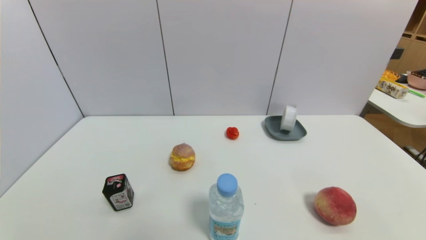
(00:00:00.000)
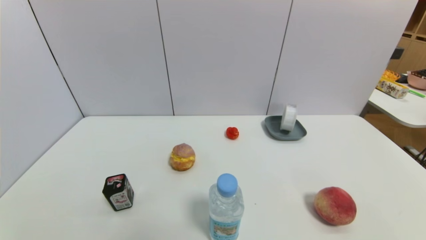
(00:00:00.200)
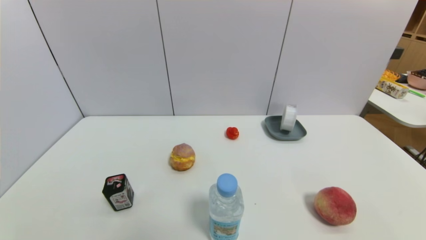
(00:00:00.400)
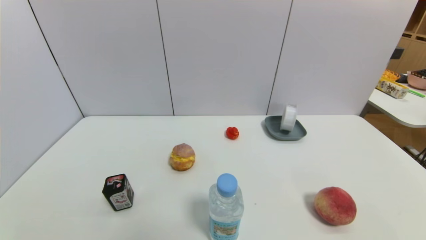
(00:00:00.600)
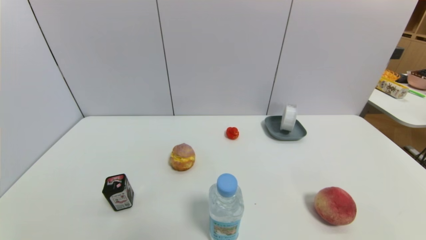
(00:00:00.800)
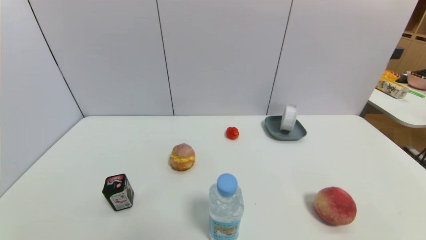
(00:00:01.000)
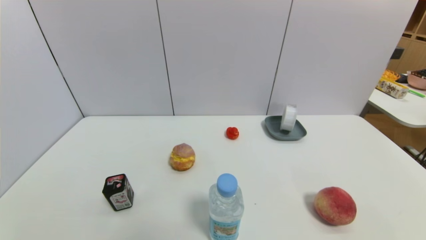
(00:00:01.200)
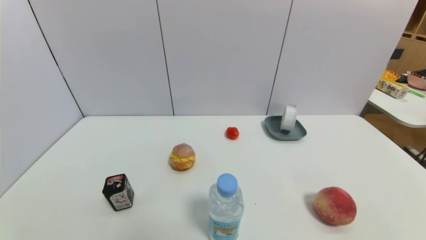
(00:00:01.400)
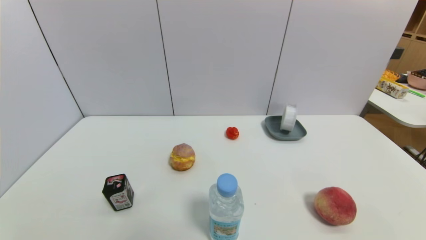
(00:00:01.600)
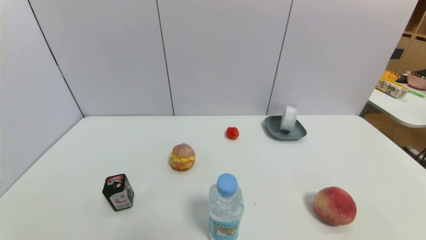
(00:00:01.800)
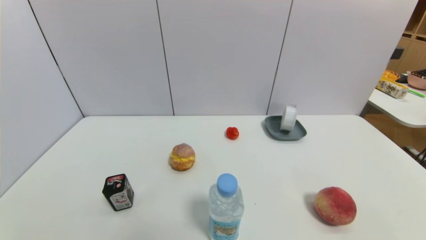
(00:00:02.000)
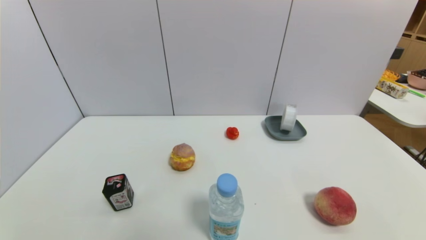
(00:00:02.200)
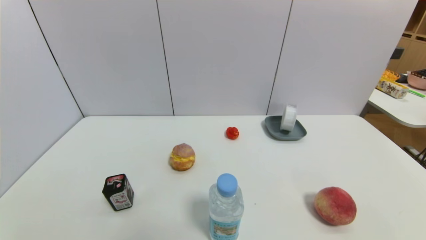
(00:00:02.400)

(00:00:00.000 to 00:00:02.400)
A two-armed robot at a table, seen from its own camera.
Task of the whole recording: use a gripper to pick the target object and place on the dish.
00:00:00.000 - 00:00:02.400: The two grippers keep their place.

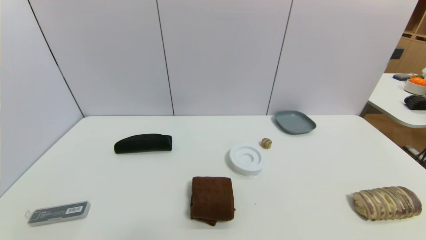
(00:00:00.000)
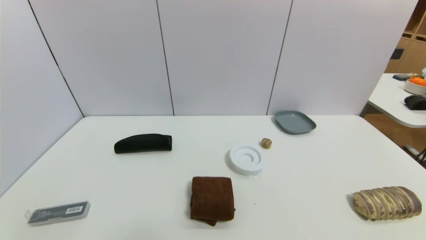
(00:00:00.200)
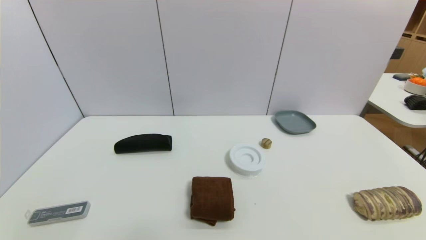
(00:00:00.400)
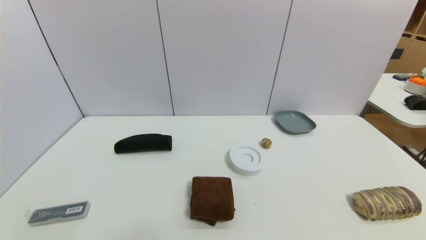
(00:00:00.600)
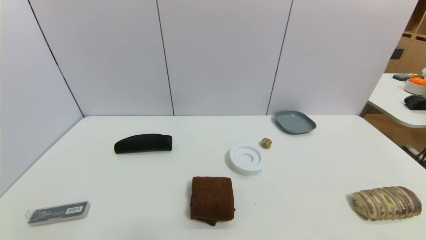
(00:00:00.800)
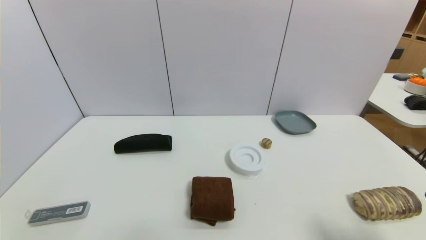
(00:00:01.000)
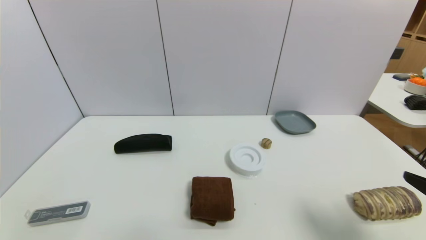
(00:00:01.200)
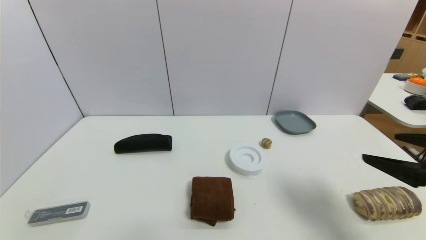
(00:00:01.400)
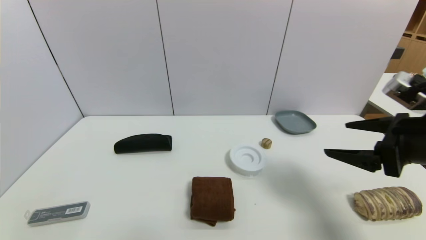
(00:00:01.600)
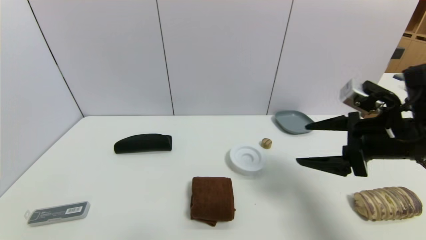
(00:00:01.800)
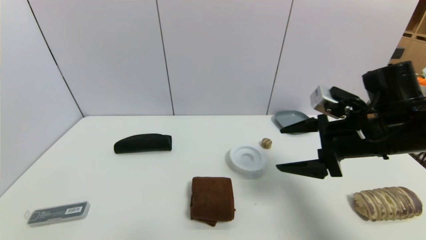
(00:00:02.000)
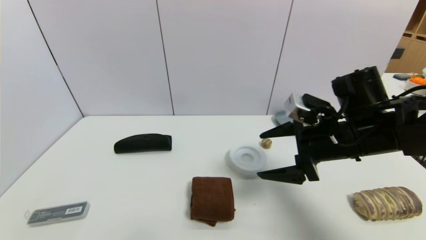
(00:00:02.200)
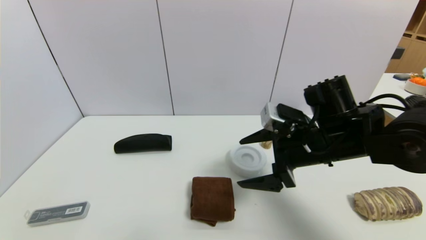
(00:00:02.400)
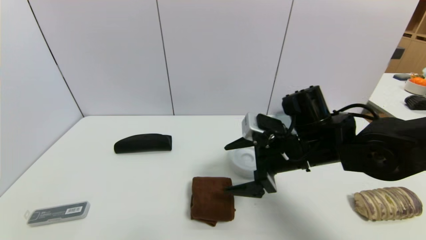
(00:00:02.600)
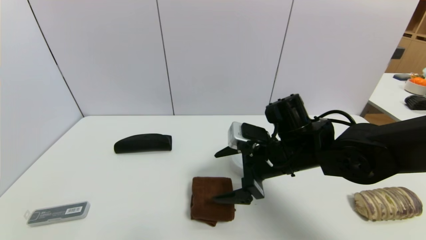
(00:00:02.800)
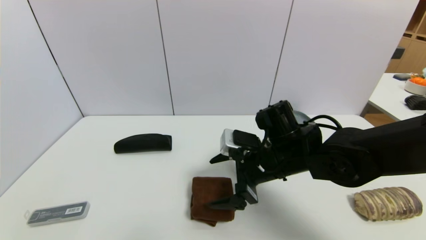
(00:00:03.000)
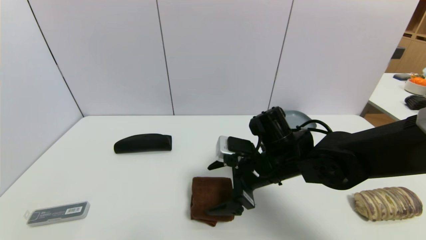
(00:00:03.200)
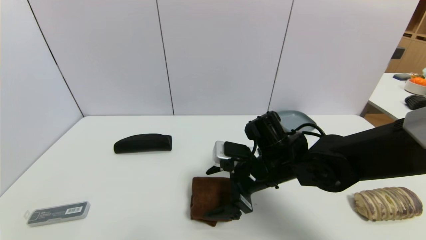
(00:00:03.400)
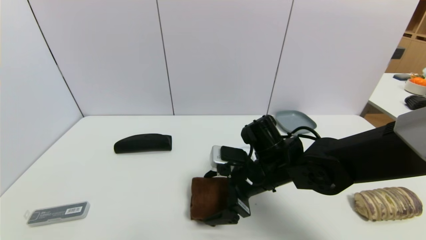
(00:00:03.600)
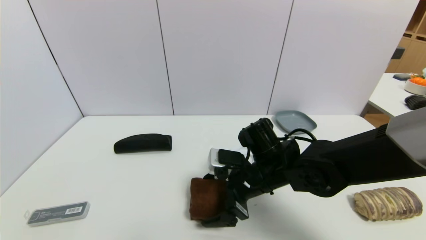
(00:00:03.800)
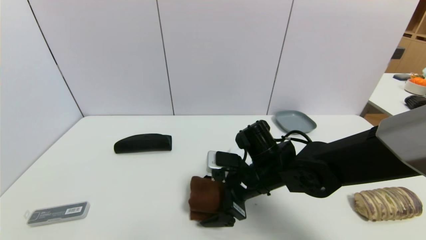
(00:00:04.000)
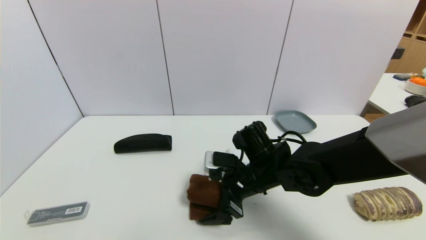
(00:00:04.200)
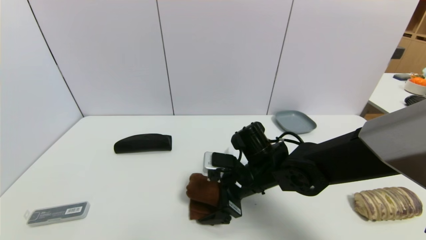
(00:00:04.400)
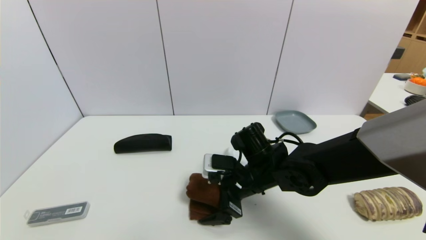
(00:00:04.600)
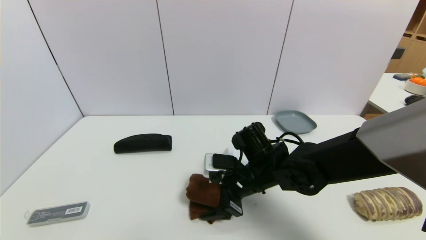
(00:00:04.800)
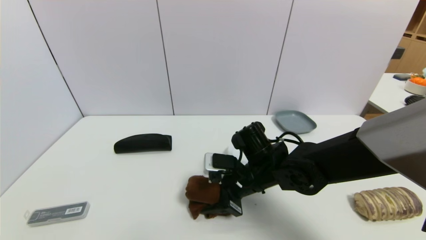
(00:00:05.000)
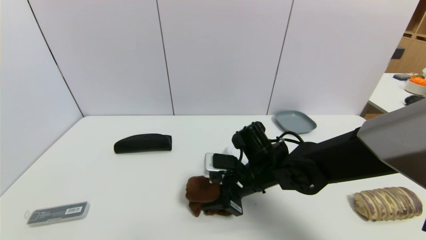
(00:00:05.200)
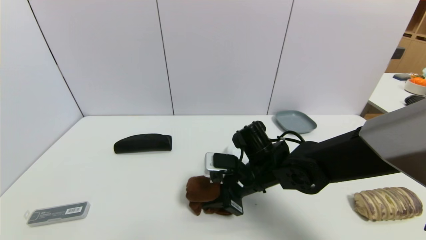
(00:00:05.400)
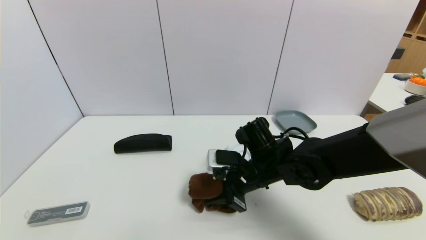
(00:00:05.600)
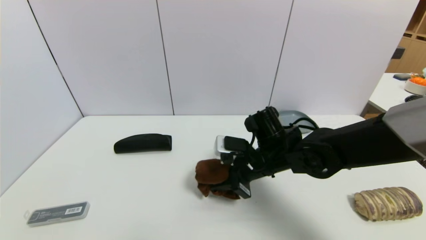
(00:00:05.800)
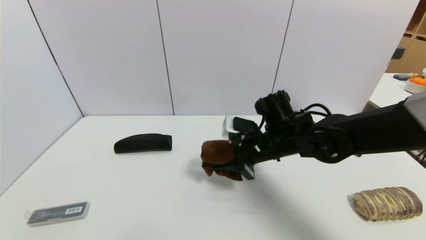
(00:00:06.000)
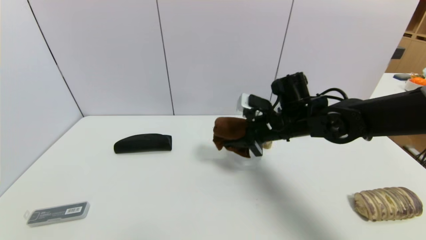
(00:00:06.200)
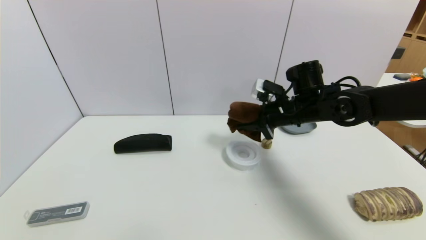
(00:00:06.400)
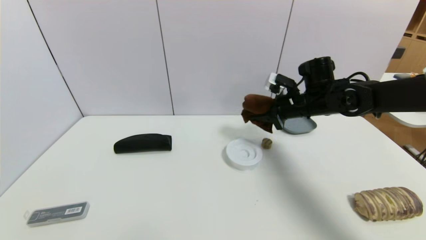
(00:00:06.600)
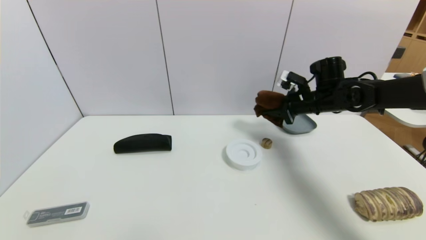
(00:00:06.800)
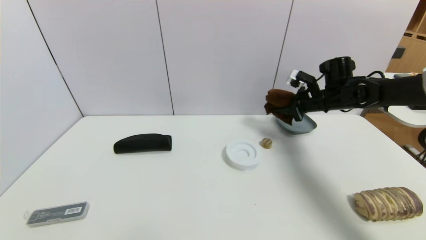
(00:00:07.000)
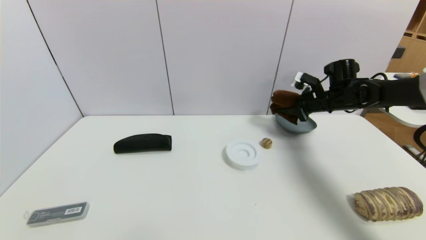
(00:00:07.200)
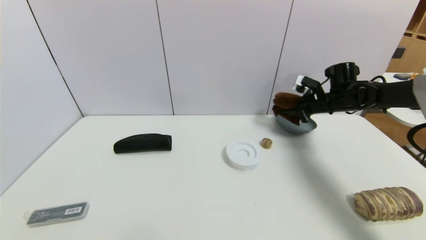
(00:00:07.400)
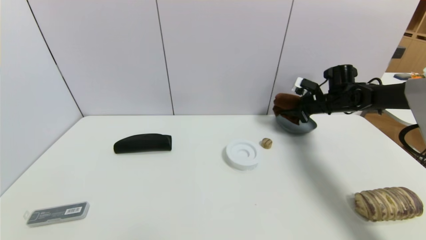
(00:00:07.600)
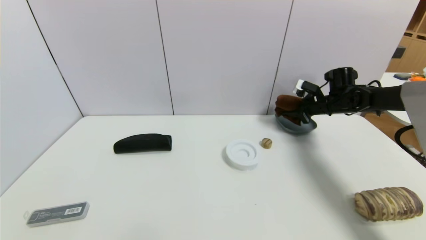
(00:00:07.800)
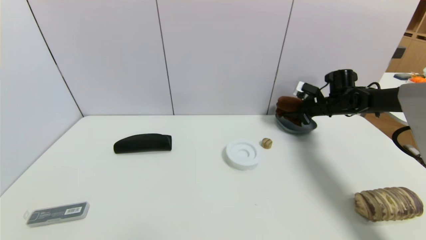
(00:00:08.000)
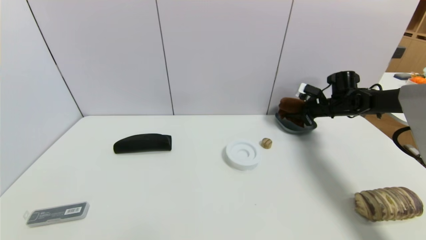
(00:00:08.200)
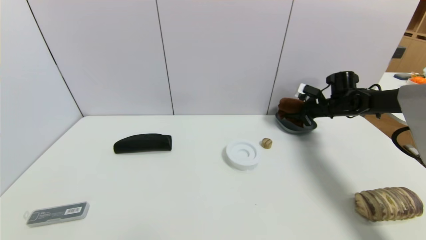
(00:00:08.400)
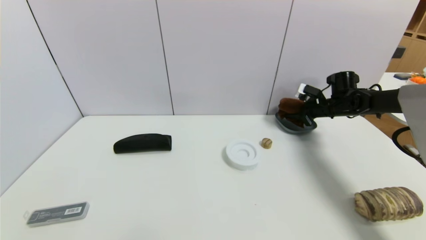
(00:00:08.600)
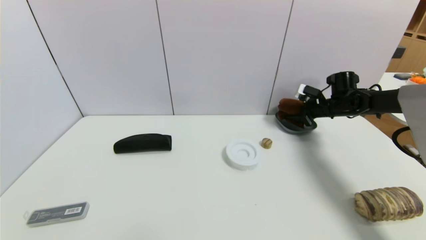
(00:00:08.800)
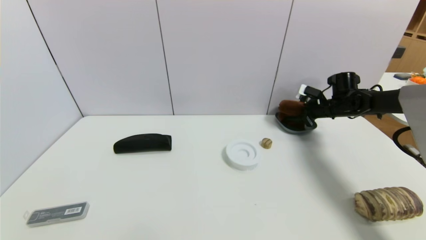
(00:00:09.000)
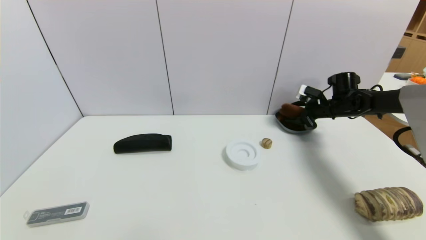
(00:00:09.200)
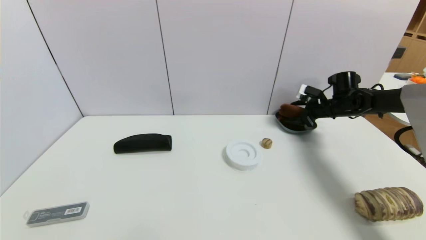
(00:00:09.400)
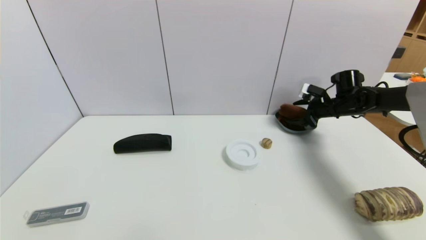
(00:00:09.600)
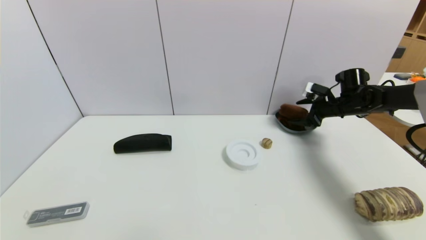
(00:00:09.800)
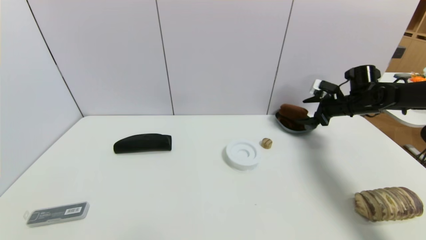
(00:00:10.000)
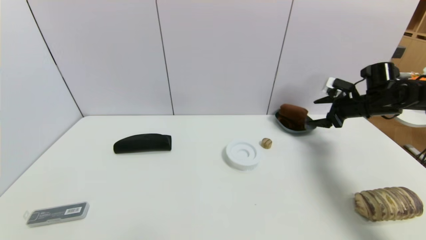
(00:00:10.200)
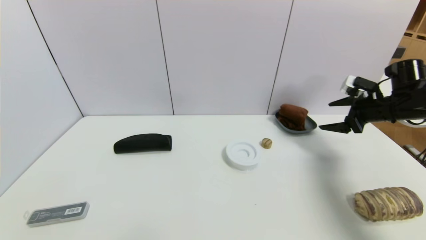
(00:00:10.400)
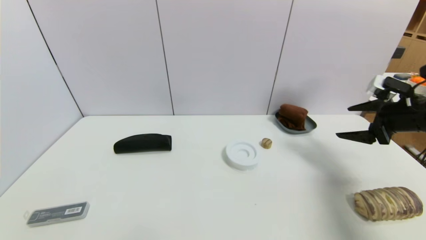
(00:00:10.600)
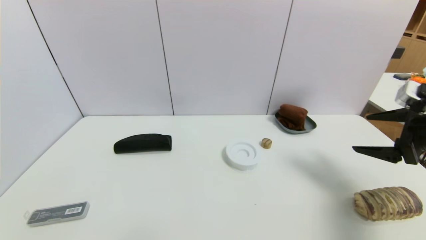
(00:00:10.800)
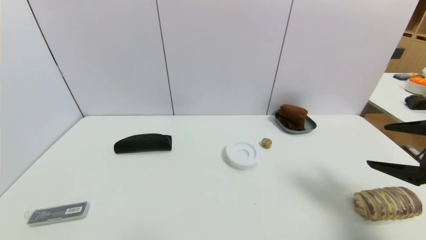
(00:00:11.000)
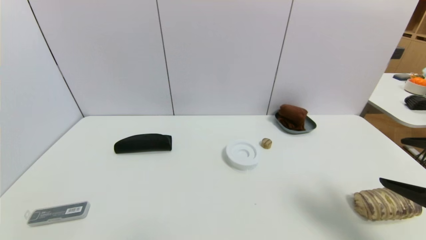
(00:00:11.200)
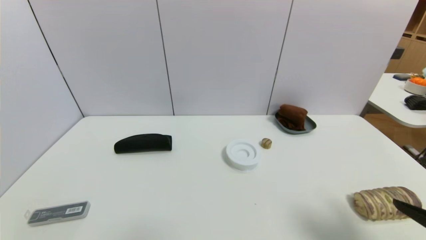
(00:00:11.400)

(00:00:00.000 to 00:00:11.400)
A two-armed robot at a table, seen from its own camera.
Task of the whole recording: use a gripper to pick the target object and place on the dish.
Step, 00:00:00.000 - 00:00:05.000: Grasp the brown towel with the right gripper.
Step, 00:00:05.200 - 00:00:10.200: Place the brown towel on the dish with the right gripper.
00:00:00.000 - 00:00:01.400: The right gripper moves upward and forward, roughly 25 cm.
00:00:01.400 - 00:00:02.800: The right gripper heads to the left, forward and downward, covering approximately 25 cm.
00:00:02.800 - 00:00:04.200: The right gripper heads downward, covering some 5 cm.
00:00:04.200 - 00:00:05.600: The right gripper closes.
00:00:05.600 - 00:00:07.200: The right gripper travels to the right and forward by approximately 30 cm.
00:00:07.200 - 00:00:08.600: The right gripper moves about 5 cm.
00:00:08.600 - 00:00:10.000: The right gripper shifts by approximately 5 cm, and opens its fingers.
00:00:10.000 - 00:00:11.400: The right gripper goes about 40 cm backward.

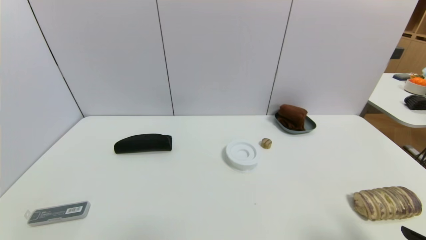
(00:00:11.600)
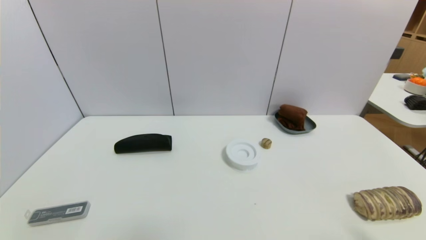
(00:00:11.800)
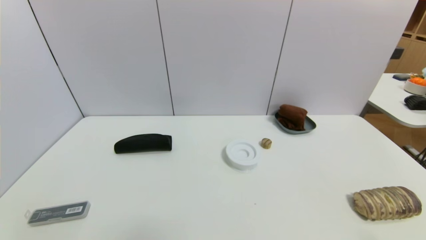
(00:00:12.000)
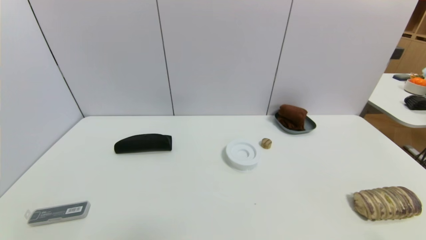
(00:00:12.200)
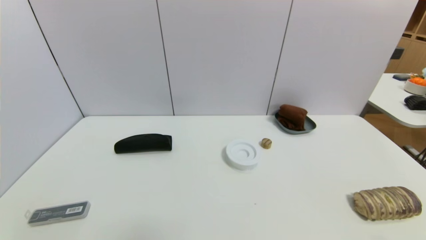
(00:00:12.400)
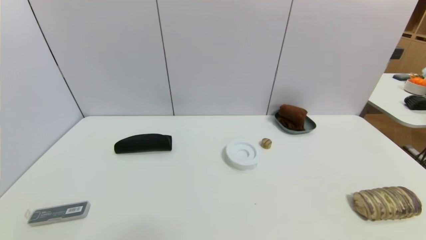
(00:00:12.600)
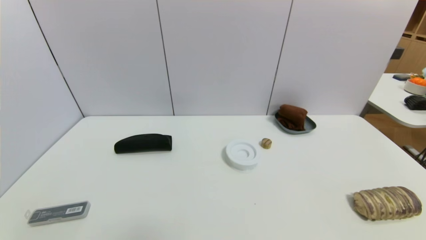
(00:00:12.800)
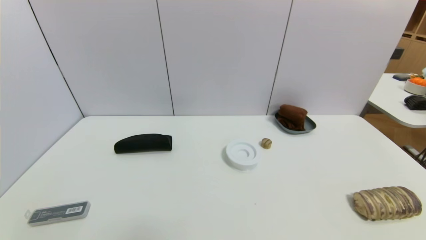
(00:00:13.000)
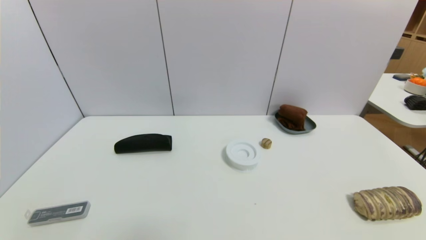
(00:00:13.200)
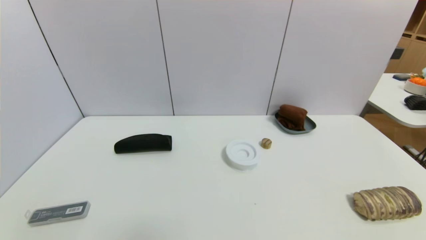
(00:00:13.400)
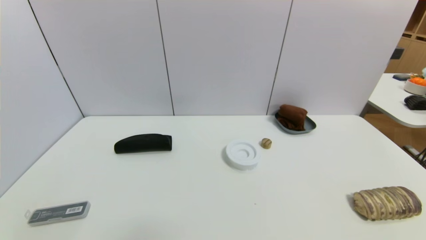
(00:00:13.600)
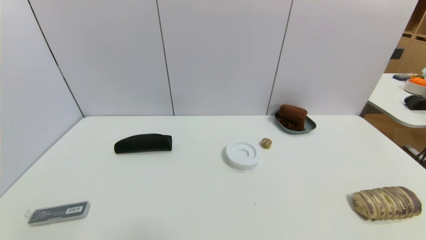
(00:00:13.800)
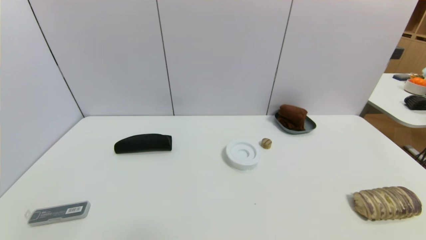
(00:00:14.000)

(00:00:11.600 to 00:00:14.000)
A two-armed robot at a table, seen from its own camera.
Task of the whole recording: use a gripper to pick the target object and place on the dish.
00:00:11.600 - 00:00:12.800: The right gripper moves downward and backward, about 10 cm.
